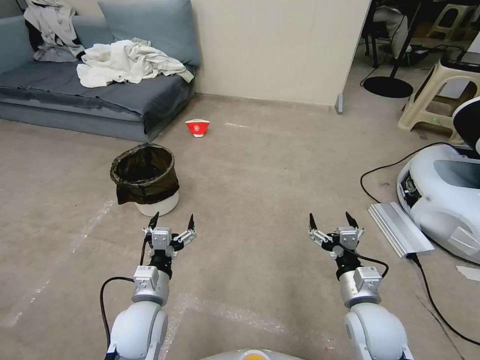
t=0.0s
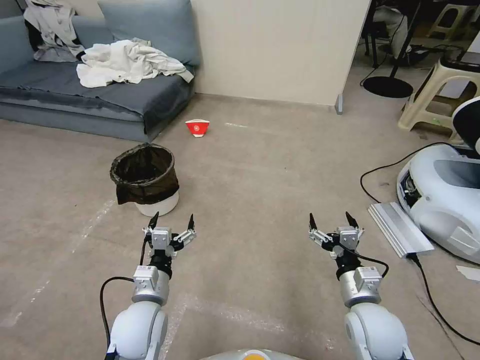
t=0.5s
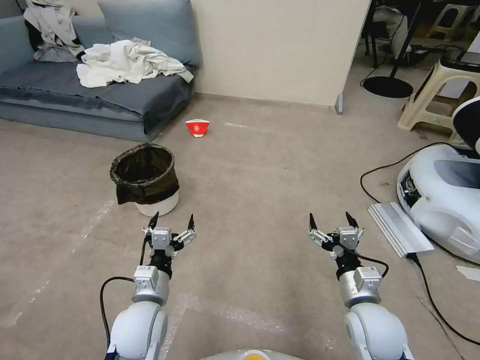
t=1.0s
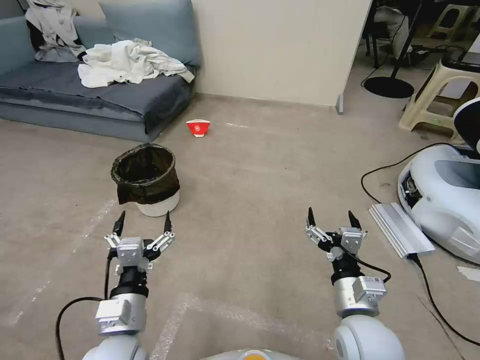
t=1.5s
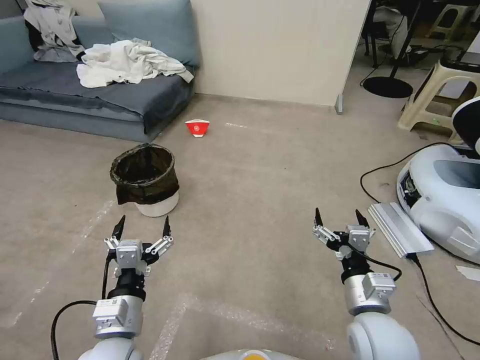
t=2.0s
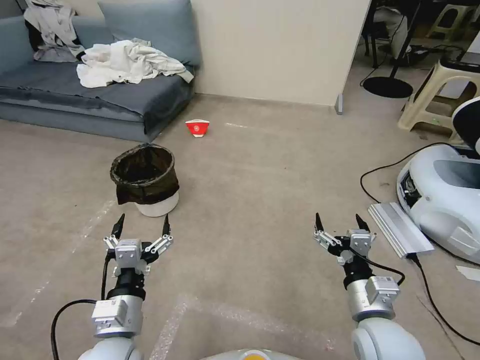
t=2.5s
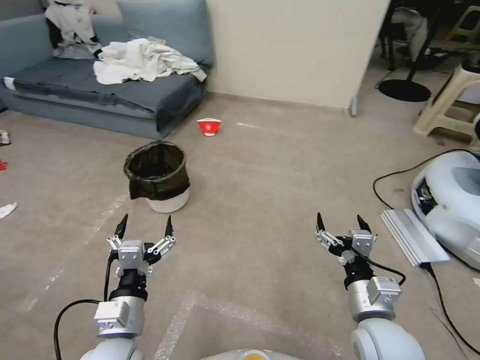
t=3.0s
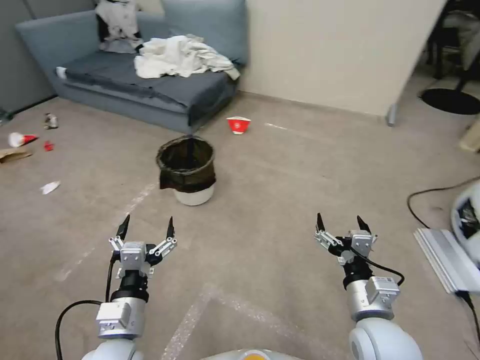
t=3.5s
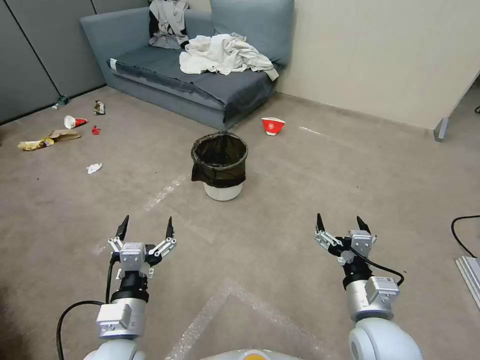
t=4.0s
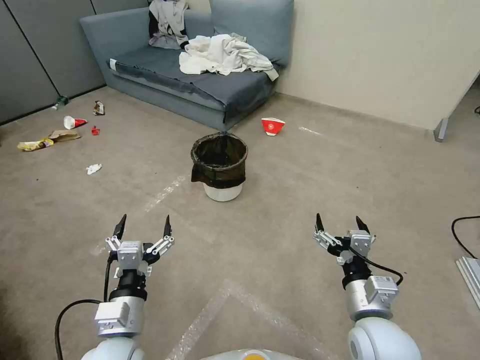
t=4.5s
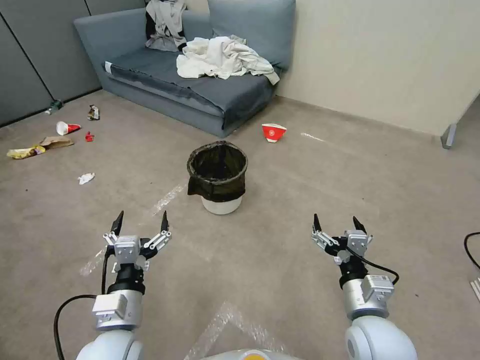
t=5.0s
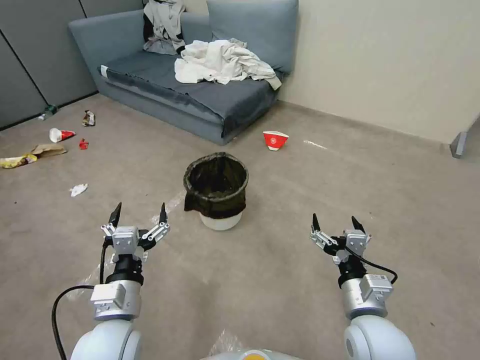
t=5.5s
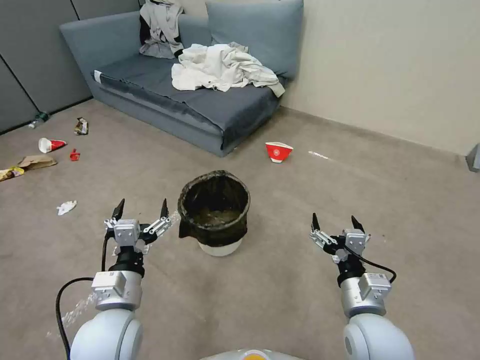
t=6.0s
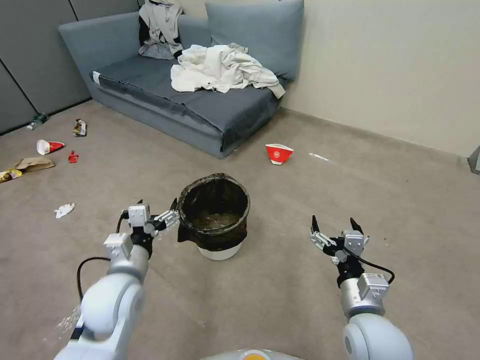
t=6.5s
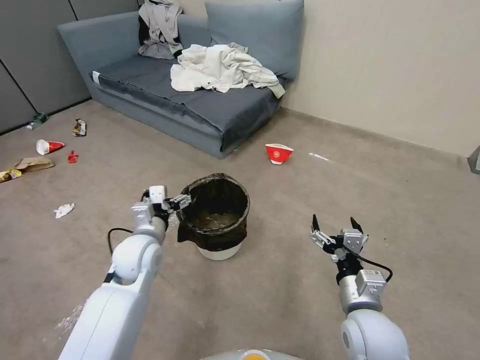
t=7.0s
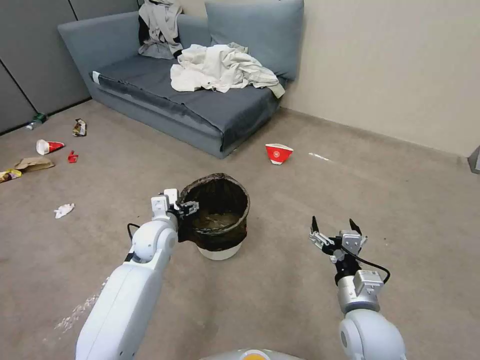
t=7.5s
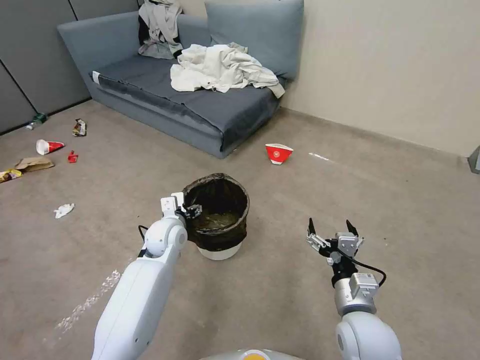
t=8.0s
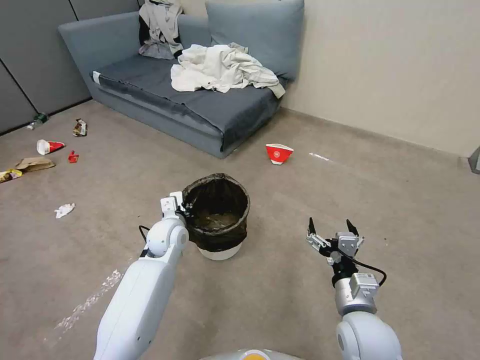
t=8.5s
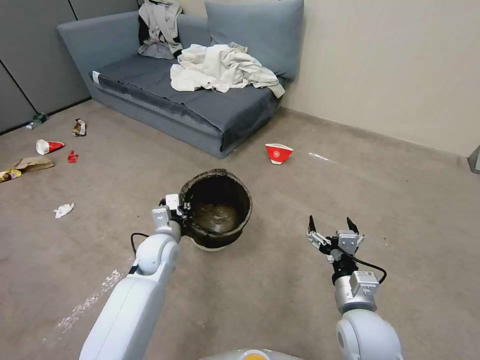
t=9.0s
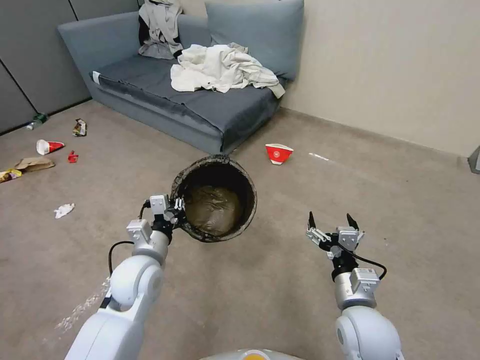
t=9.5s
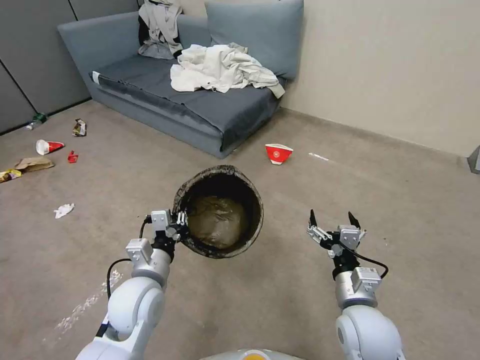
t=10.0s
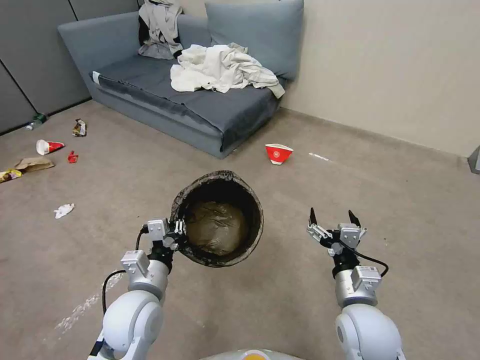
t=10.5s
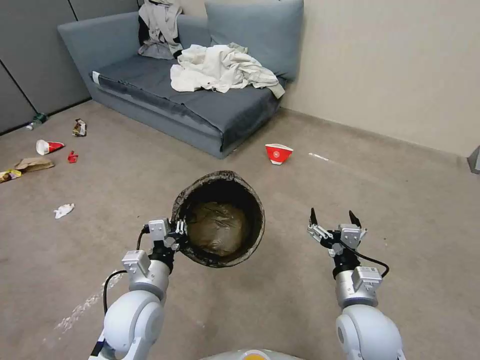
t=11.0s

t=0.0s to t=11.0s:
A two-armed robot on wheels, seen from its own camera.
Task of the whole recording: Pick up the trash can from the floor.
t=5.5s to t=7.5s: The left gripper shifts about 20 cm forward.
t=7.5s to t=9.0s: The left gripper closes up.
t=9.0s to t=11.0s: The left gripper heads backward, covering some 15 cm.

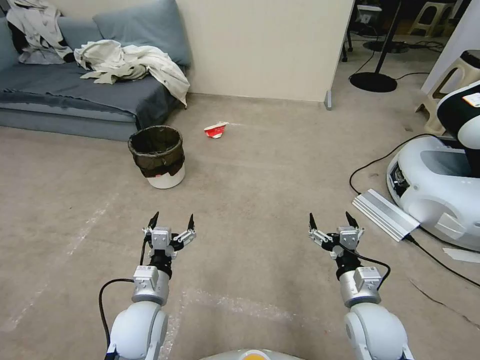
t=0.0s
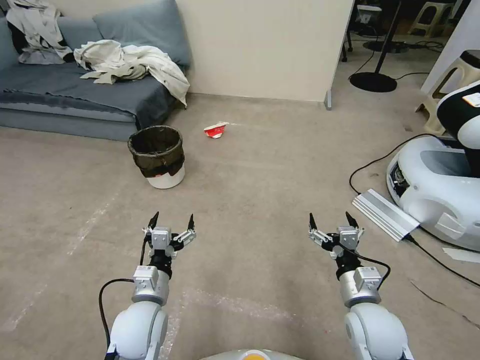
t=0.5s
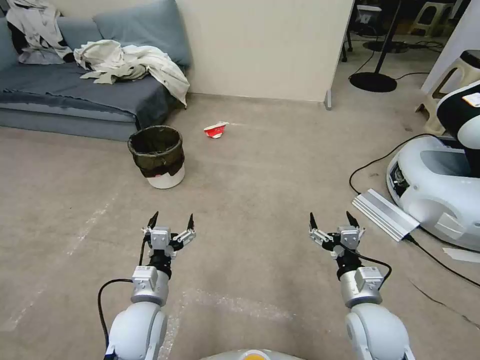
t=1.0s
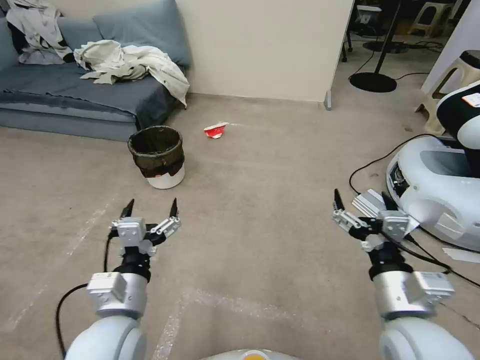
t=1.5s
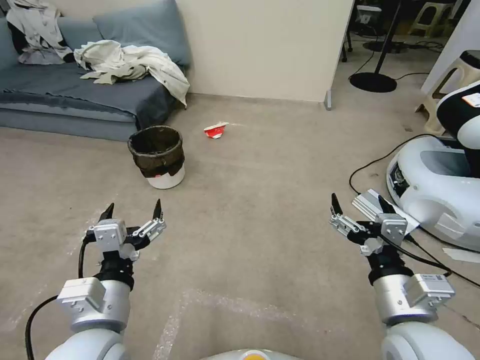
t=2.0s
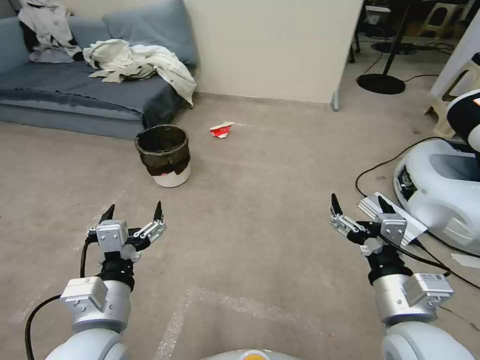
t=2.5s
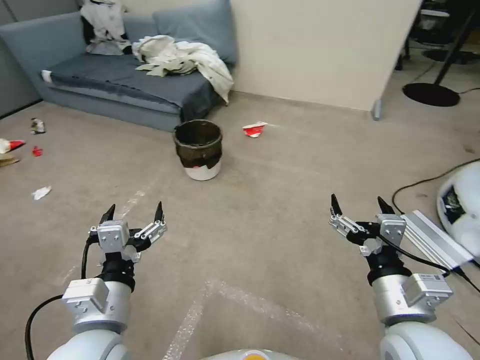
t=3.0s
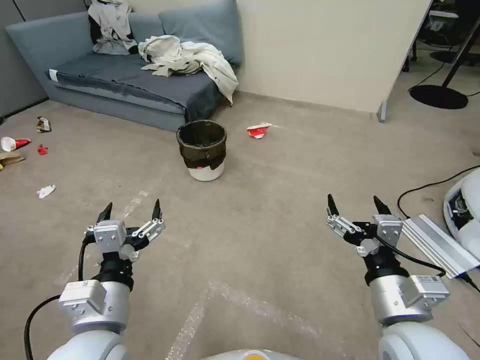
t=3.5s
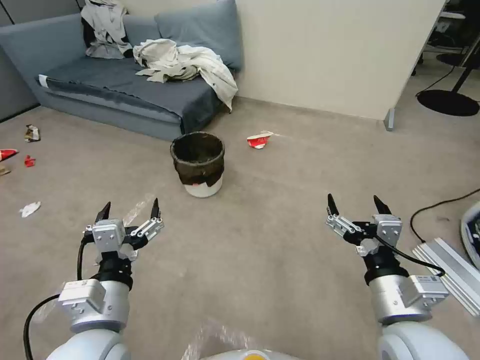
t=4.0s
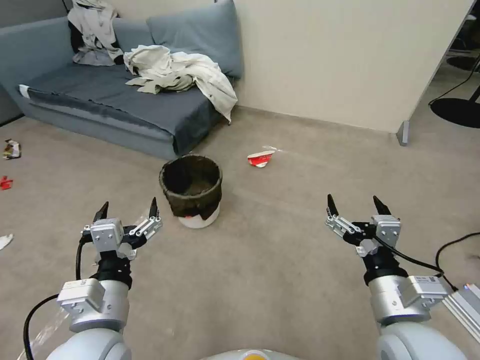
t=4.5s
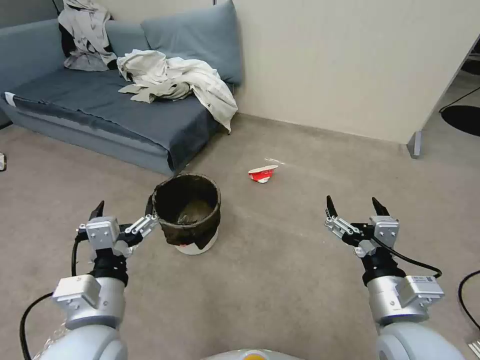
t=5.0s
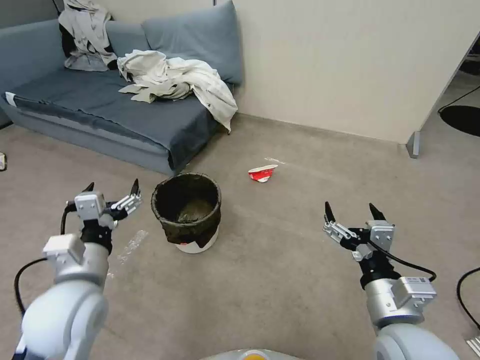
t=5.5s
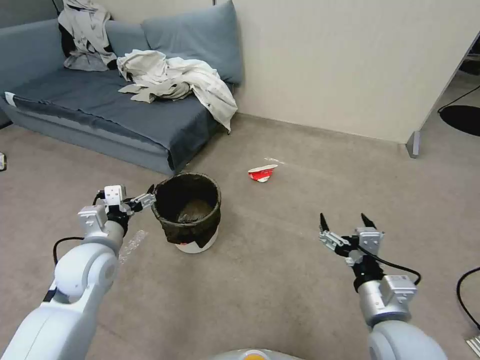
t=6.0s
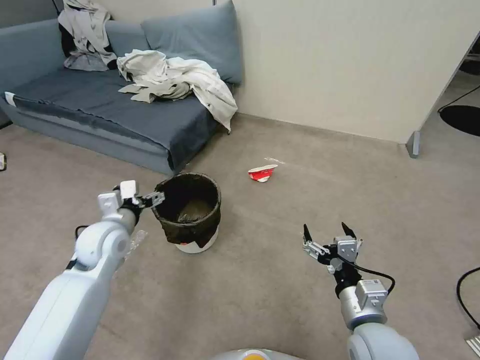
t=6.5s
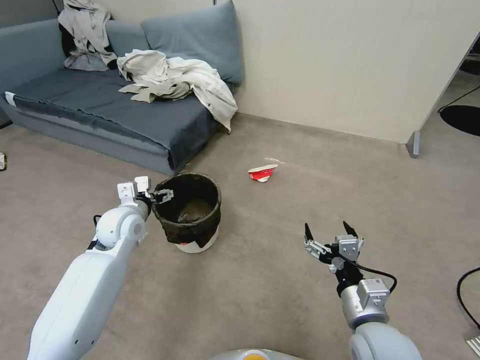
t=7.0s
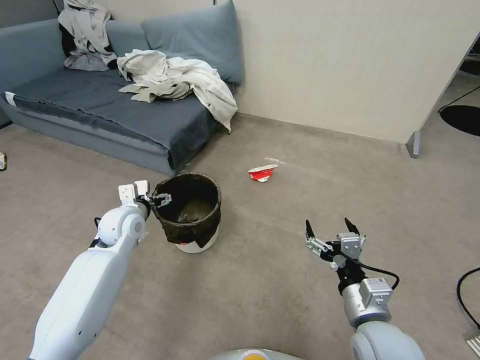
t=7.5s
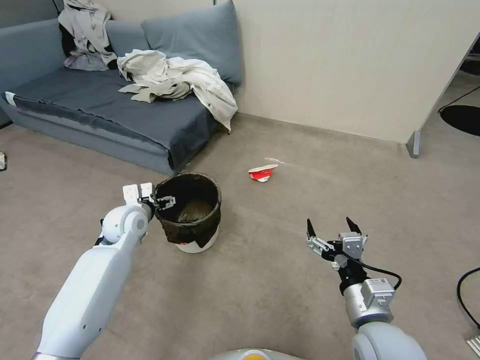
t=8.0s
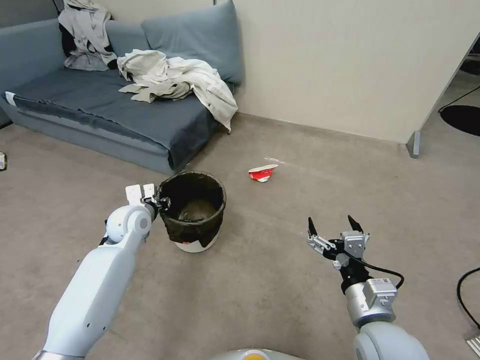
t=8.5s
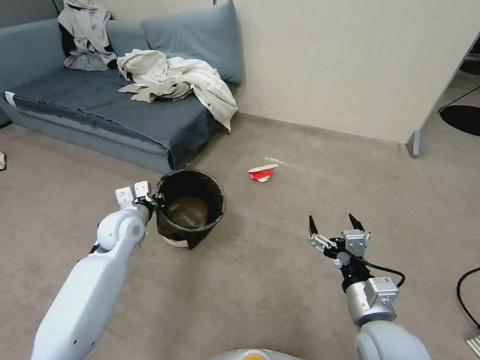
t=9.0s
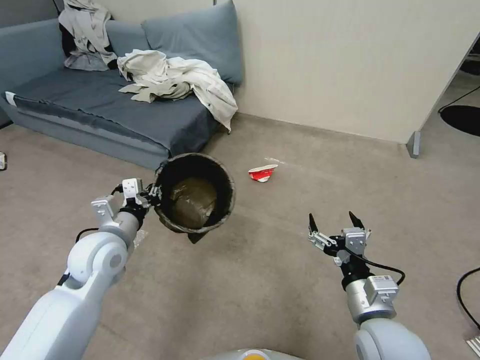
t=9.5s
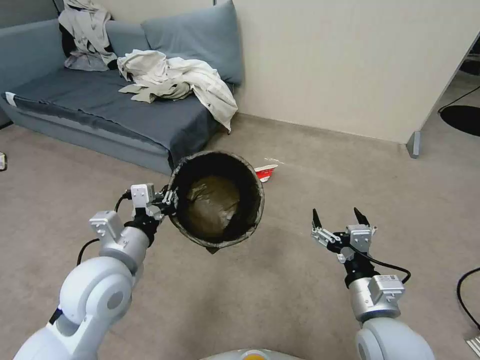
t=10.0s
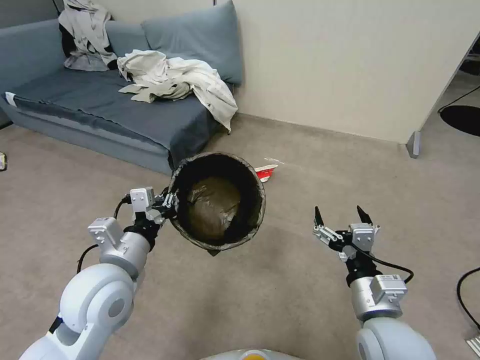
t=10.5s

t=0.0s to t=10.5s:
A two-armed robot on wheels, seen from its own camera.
Task of the whole recording: Pick up the trash can from the floor.
t=4.0s to t=6.5s: The right gripper shifts some 10 cm downward. The left gripper shifts about 20 cm forward and to the left.
t=6.5s to t=8.5s: The left gripper shifts approximately 5 cm forward, and closes up.
t=8.5s to t=10.5s: The left gripper travels backward and upward by about 20 cm.

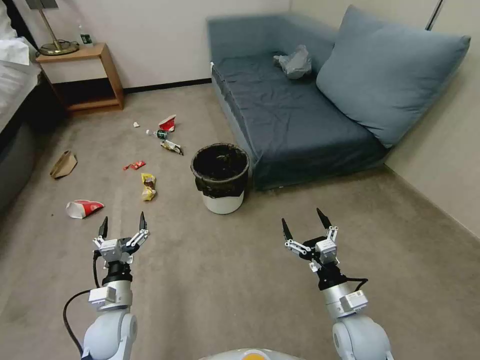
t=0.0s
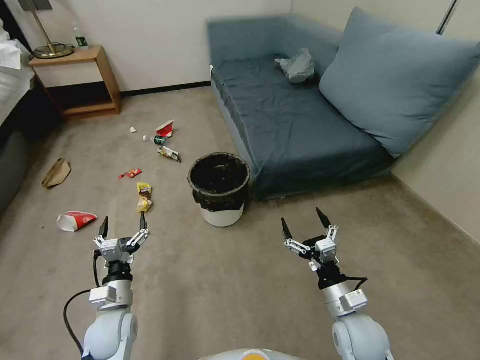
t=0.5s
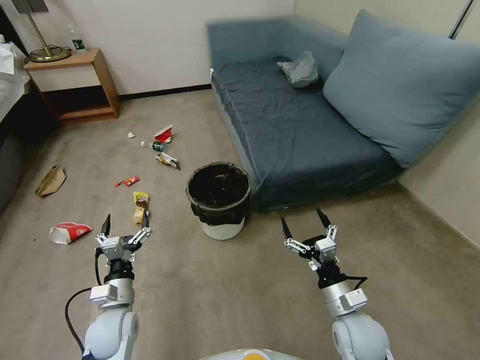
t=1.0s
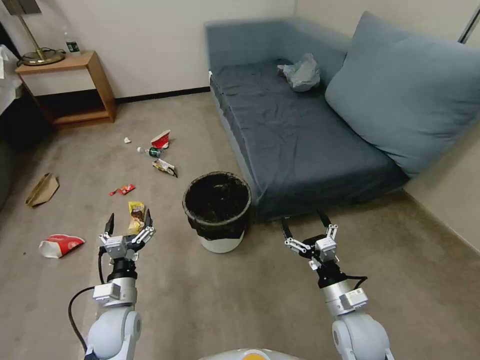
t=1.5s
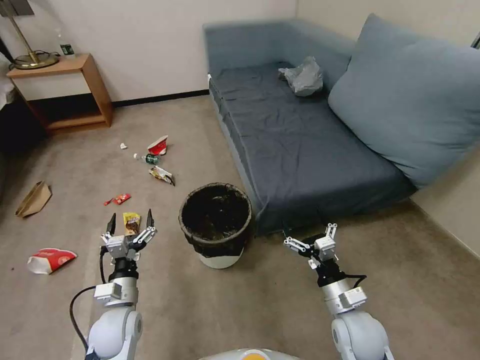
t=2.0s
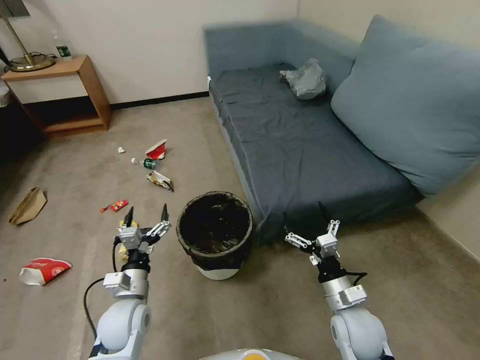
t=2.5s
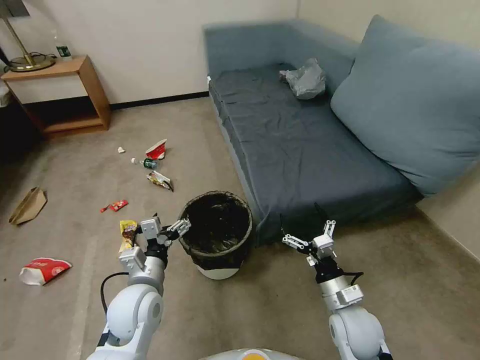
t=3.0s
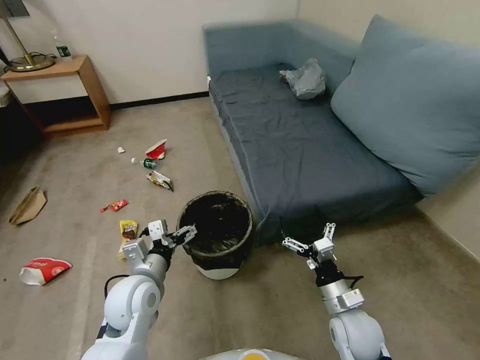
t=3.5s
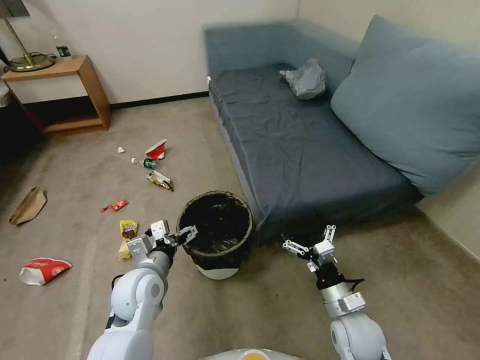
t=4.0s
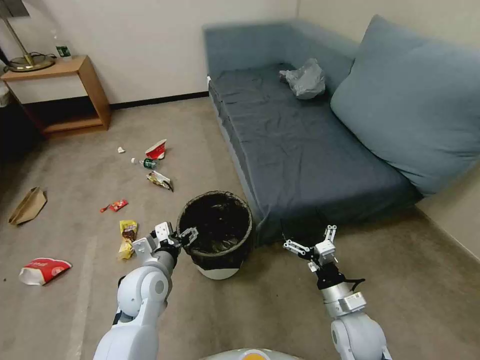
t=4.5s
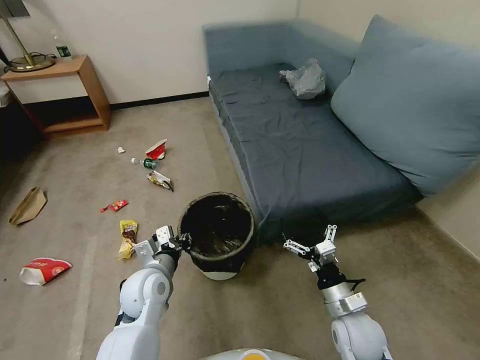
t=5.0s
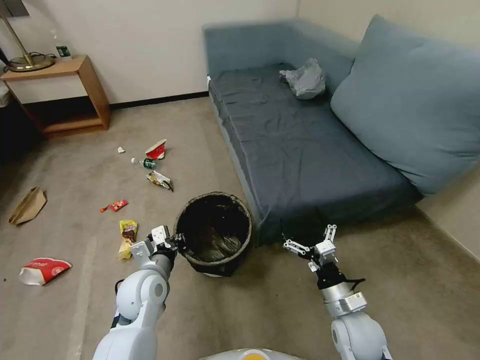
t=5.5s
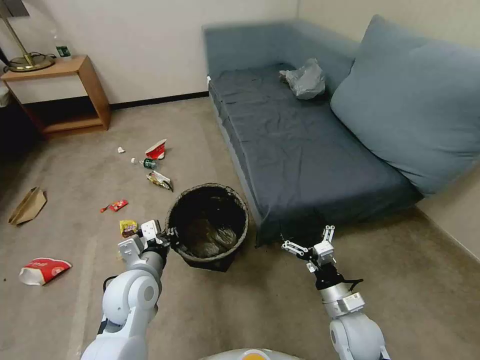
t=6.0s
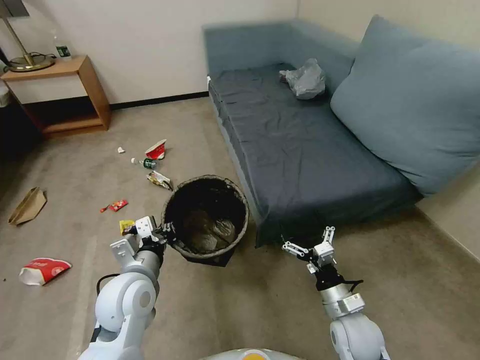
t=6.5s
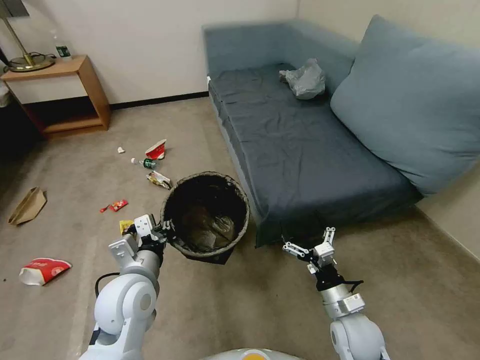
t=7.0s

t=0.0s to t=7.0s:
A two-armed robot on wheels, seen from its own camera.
Task of the whole recording: Pick up the trash can from the floor.
t=2.0s to t=3.5s: The left gripper heads upward and to the right, covering roughly 10 cm.
t=3.5s to t=5.0s: The left gripper closes its fingers.
t=5.0s to t=7.0s: The left gripper heads upward, covering roughly 10 cm.
